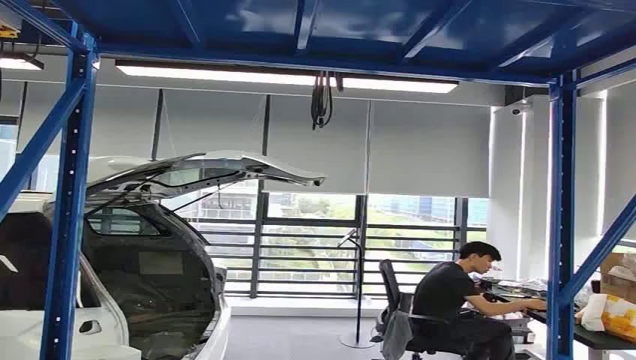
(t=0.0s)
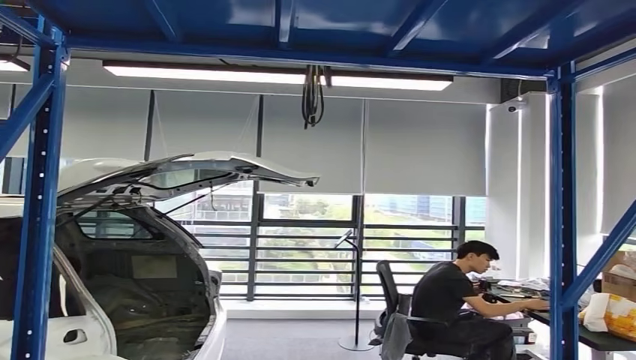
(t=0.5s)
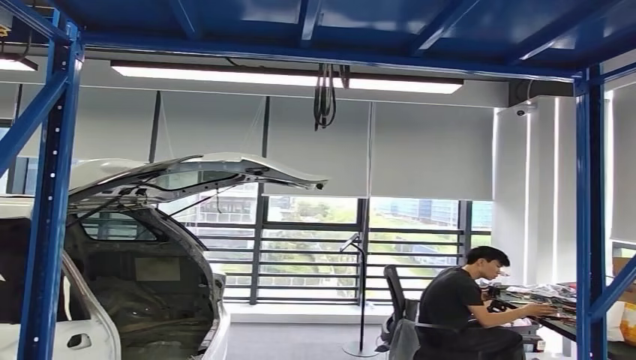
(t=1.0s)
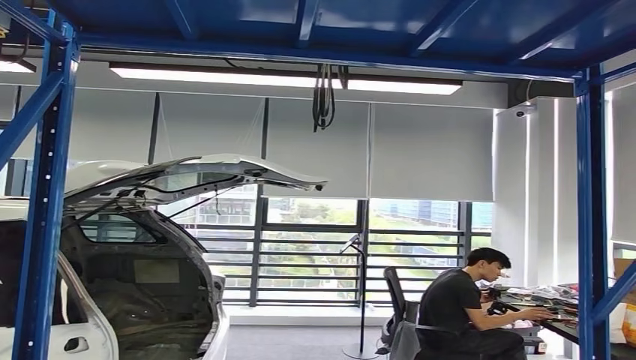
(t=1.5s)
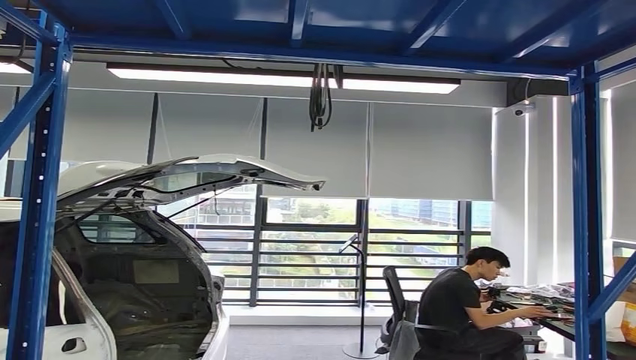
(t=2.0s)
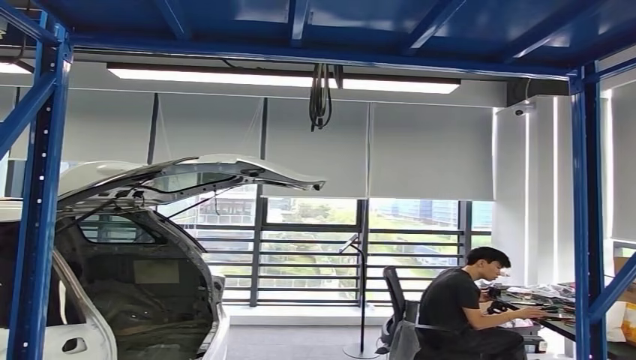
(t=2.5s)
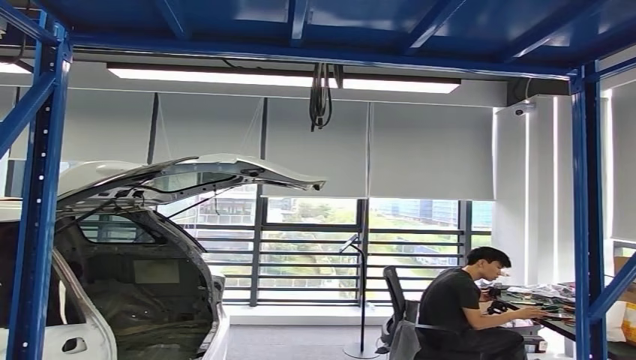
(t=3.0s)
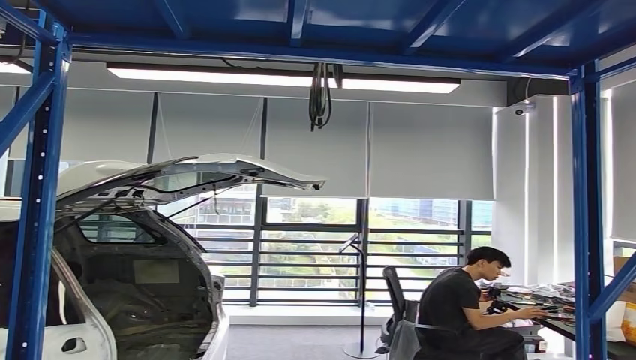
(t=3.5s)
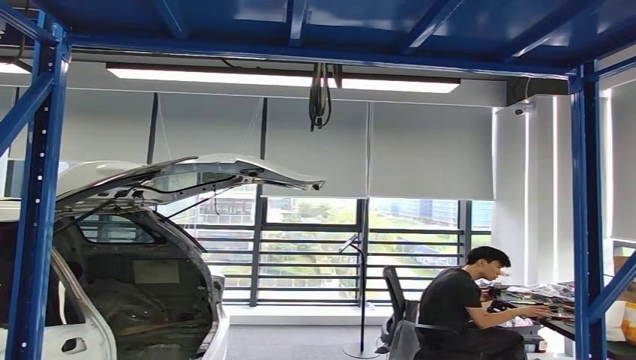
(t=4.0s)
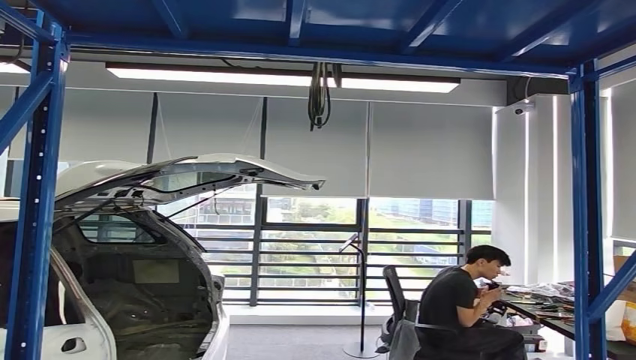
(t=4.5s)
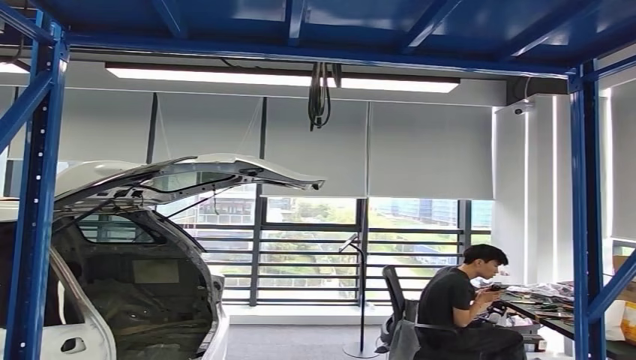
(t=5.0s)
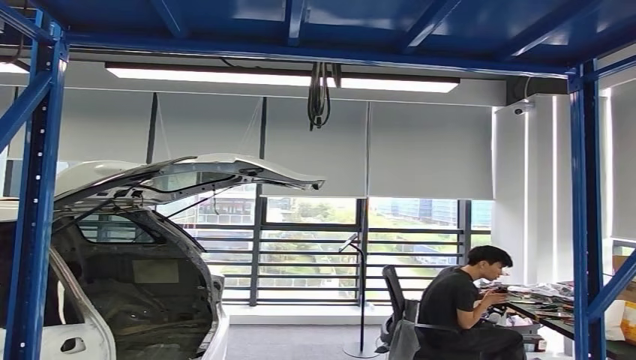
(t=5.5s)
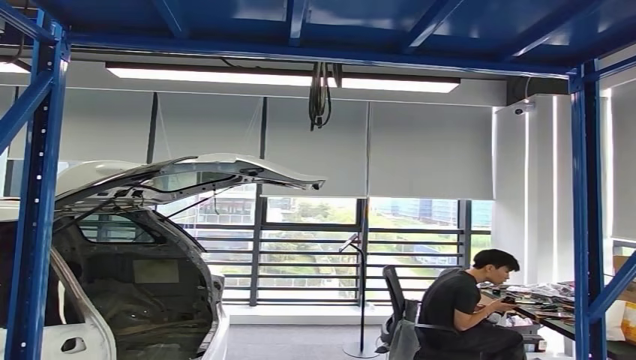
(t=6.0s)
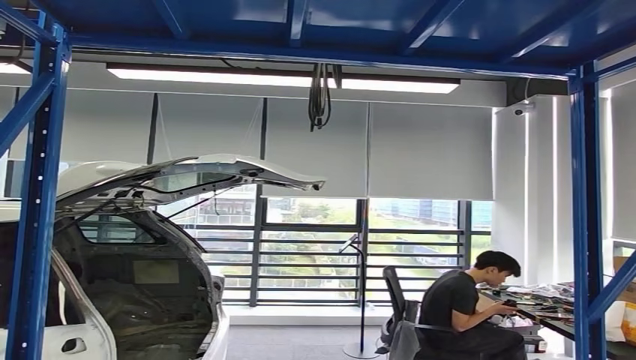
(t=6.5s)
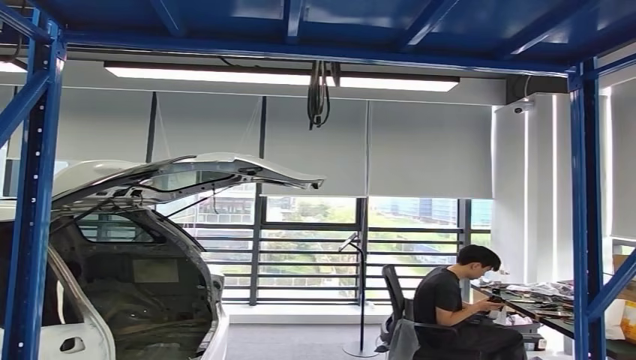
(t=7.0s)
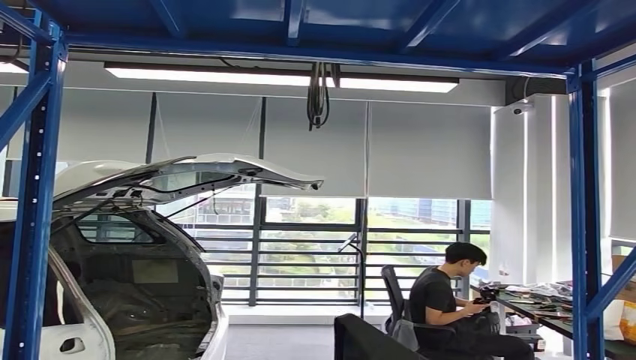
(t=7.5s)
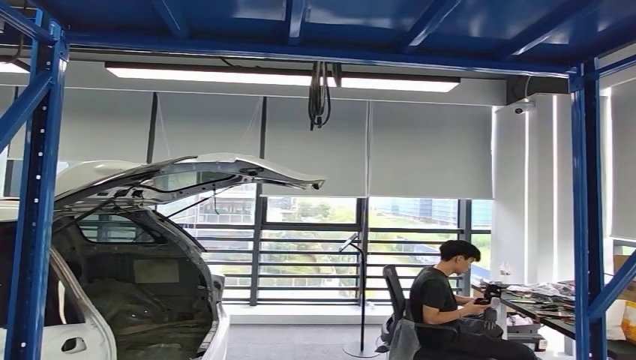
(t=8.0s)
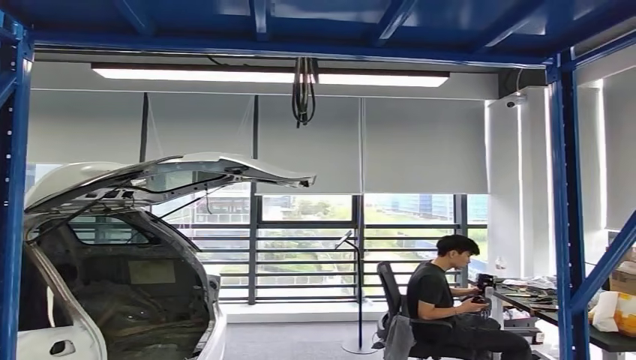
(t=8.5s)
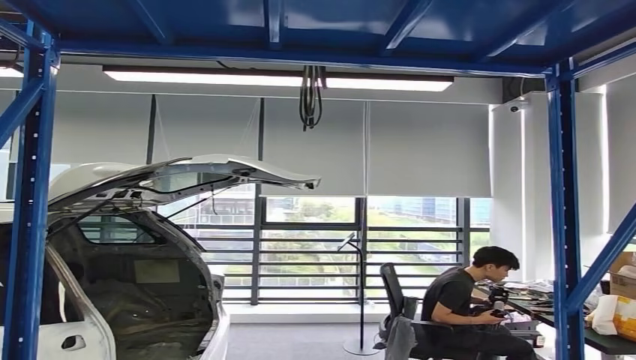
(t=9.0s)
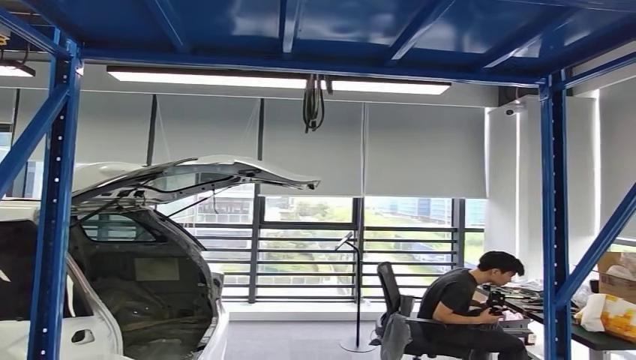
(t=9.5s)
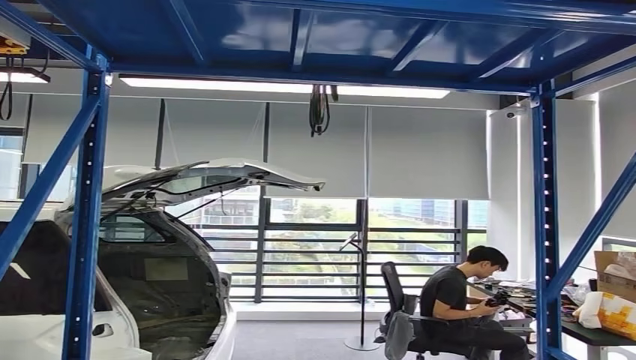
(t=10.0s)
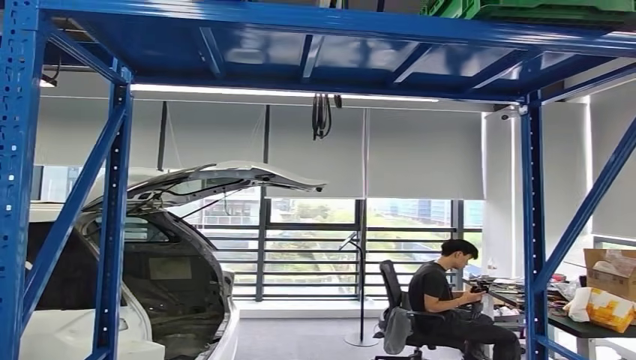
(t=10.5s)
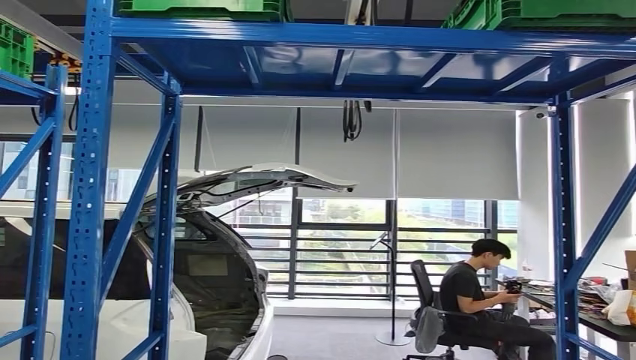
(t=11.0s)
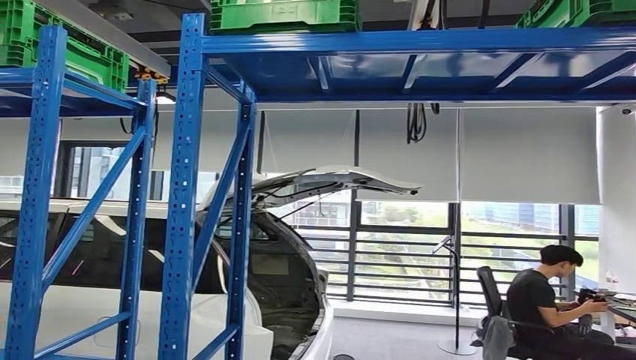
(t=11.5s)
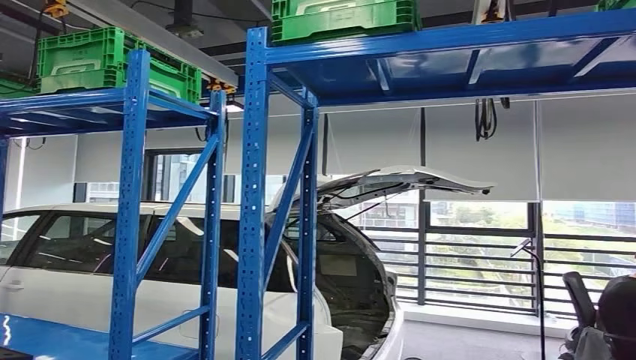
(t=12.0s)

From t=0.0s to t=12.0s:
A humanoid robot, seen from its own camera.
Step, from t=0.0s to t=6.5s: Pick up the small component from the shelf.
From t=2.0s to t=4.0s: The right hand goes roughly 20 cm forward.
From t=4.0s to t=6.0s: The right hand shifts some 10 cm to the left.
From t=6.0s to t=8.0s: The right hand is displaced backward and upward by about 15 cm.

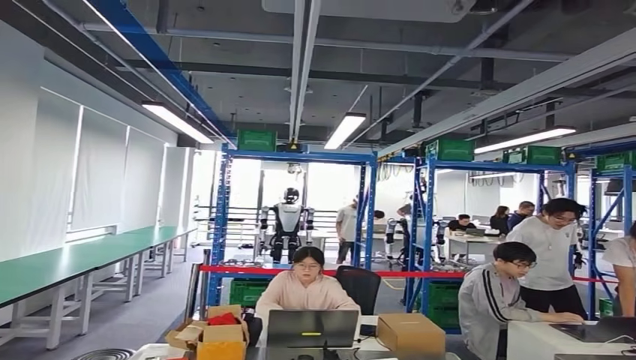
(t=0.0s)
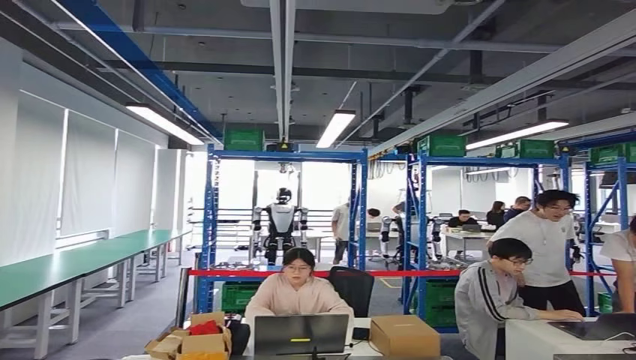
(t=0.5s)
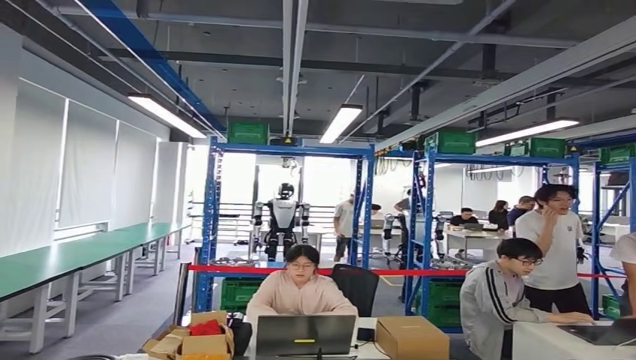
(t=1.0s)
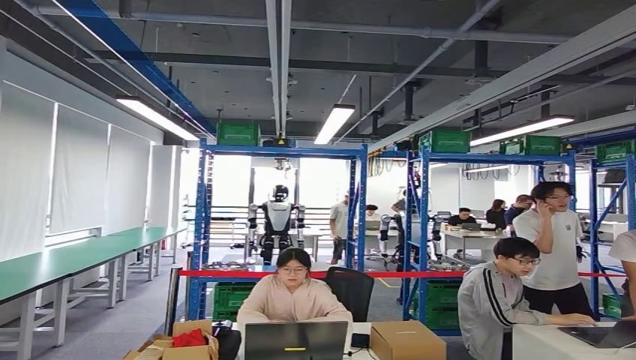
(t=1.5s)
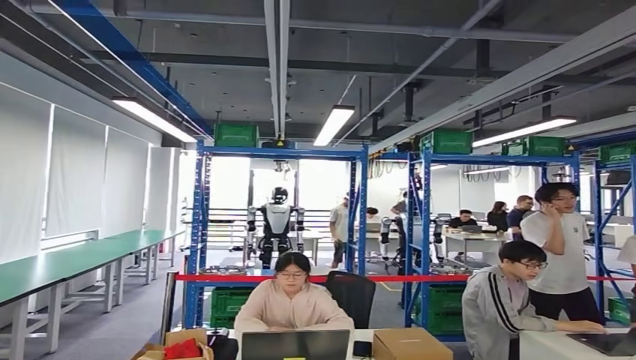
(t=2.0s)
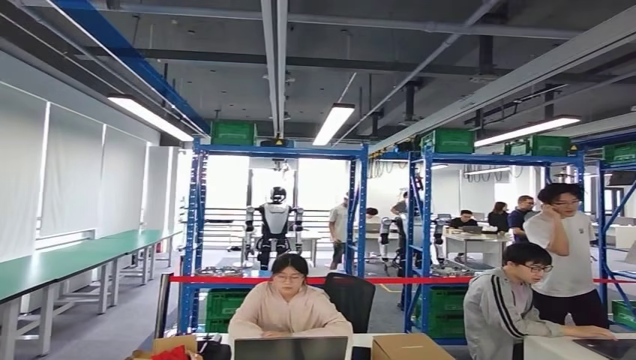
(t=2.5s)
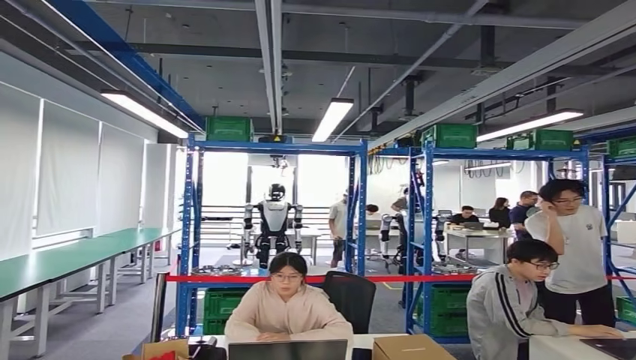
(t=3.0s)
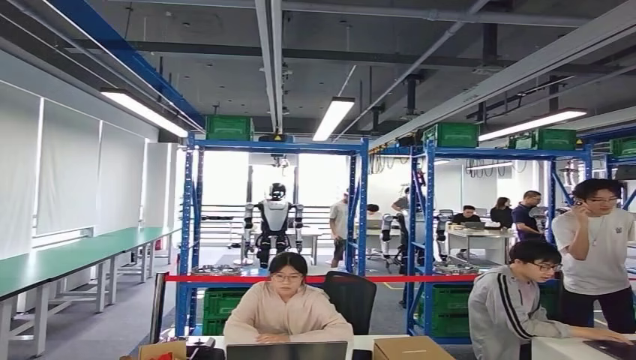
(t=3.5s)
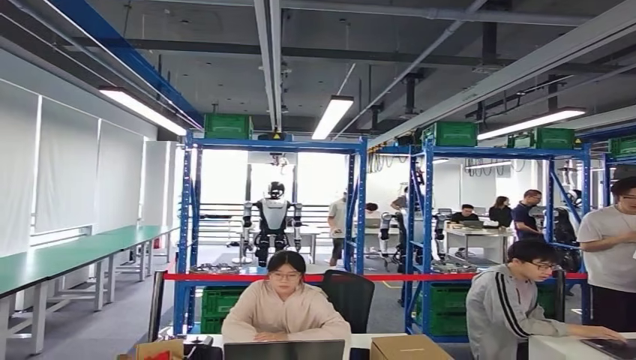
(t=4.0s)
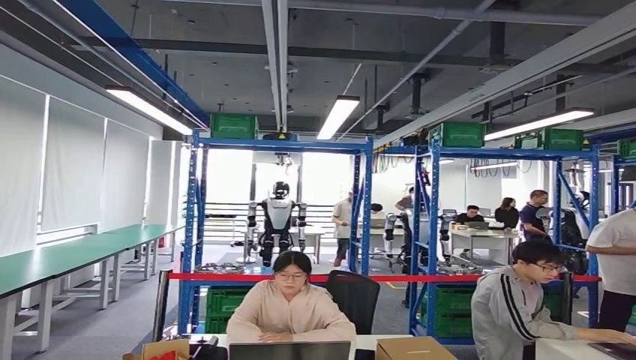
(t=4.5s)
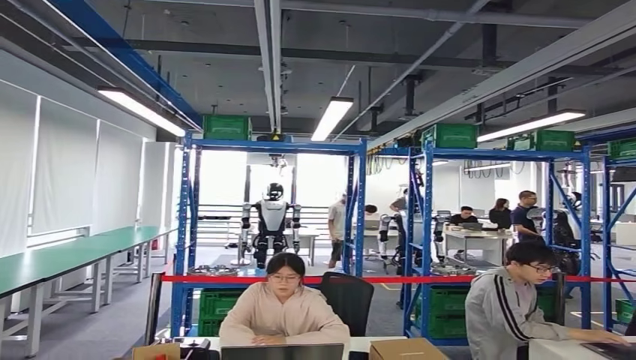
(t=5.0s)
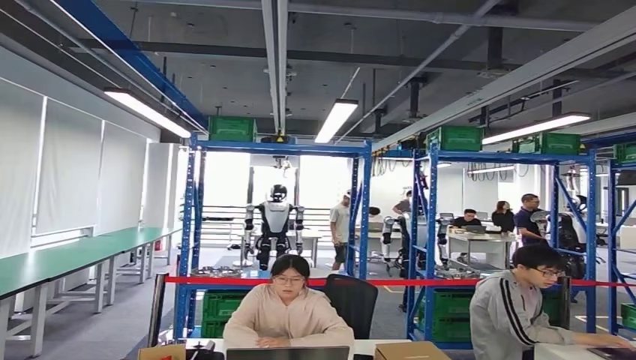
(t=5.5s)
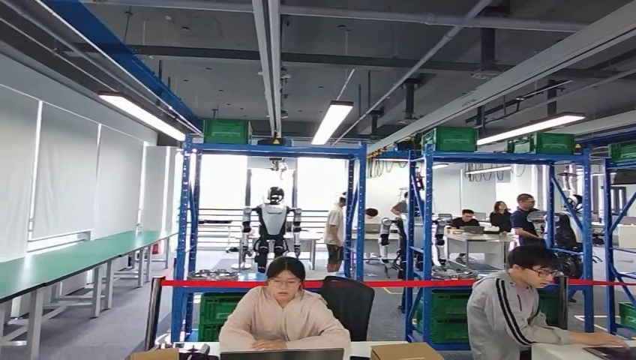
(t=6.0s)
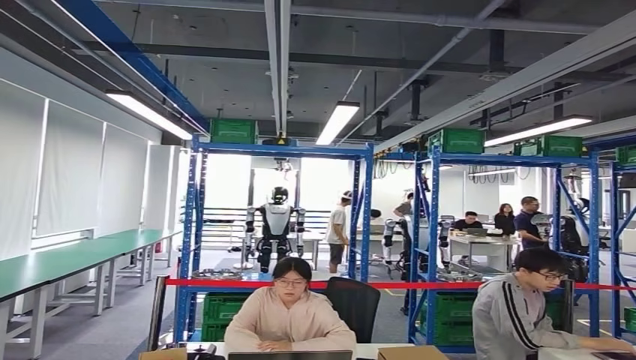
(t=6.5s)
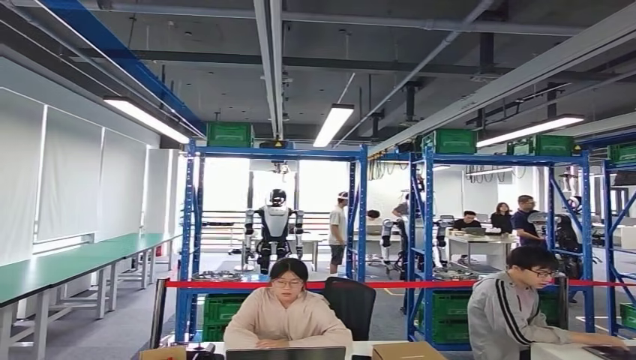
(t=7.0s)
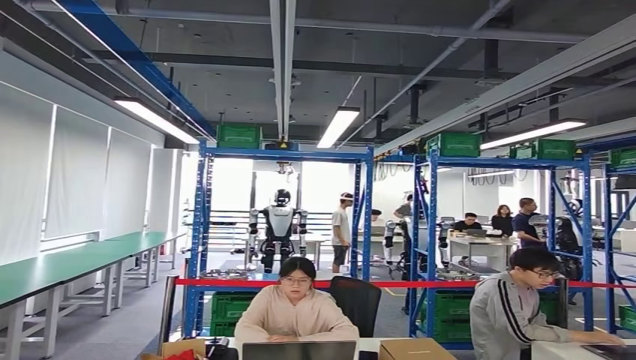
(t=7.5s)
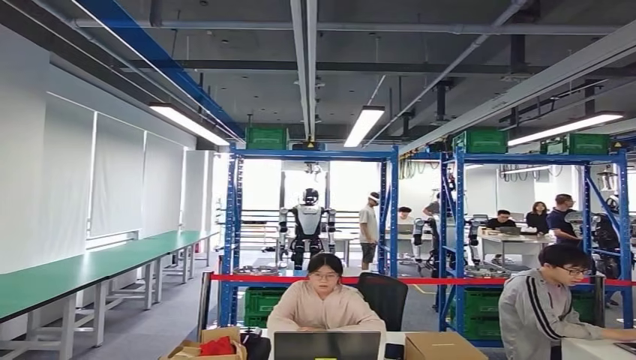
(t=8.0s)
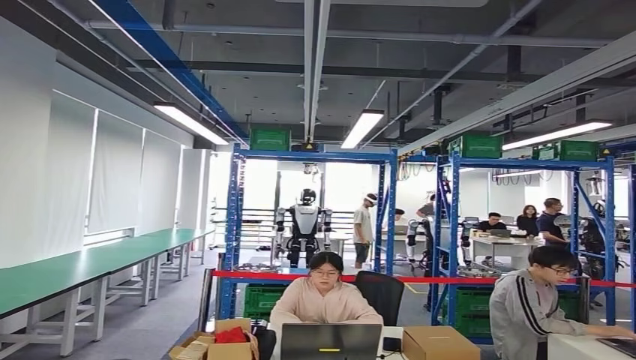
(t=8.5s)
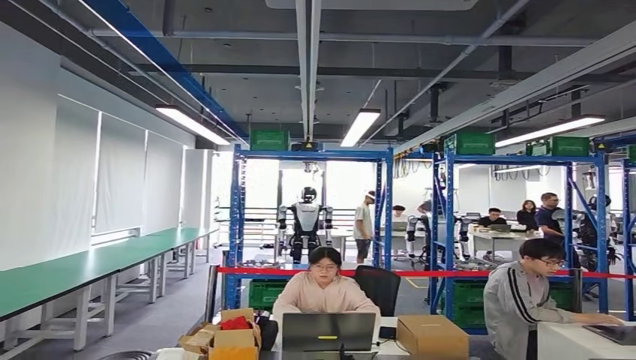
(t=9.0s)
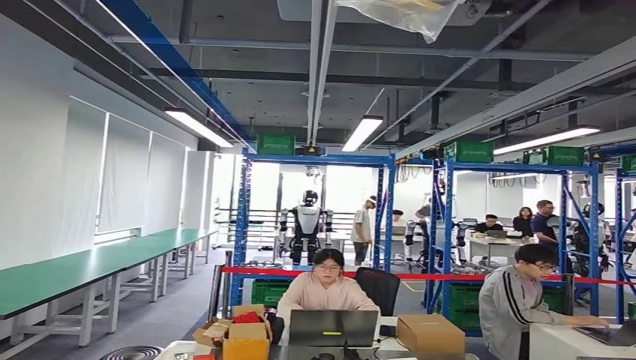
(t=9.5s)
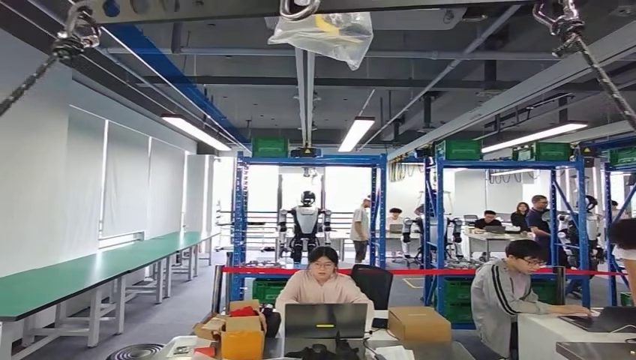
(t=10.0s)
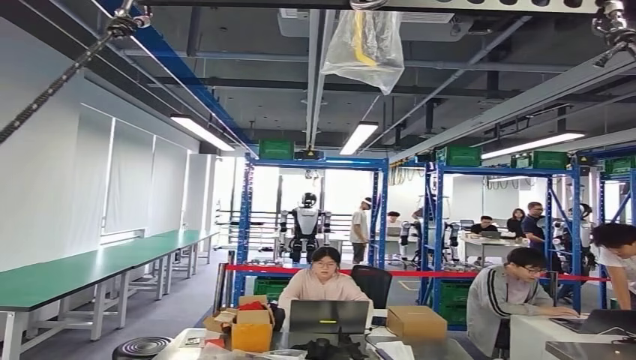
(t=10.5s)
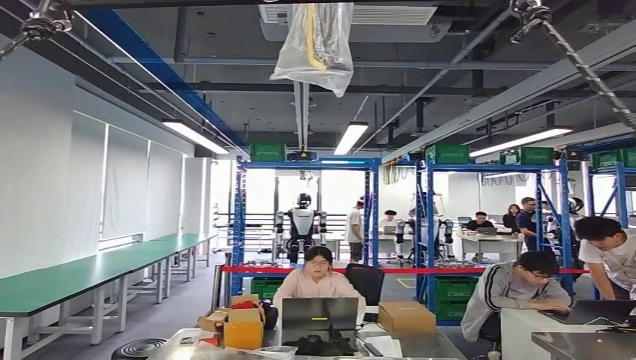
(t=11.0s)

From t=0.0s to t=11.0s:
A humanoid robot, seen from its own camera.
Step, from t=0.0s to t=5.0s: Move the small component to the workbench.
Step, from t=5.5s to t=7.5s: Insert the small component into the corresponding slot on the workbench.
Step, from t=8.0s to t=11.0s: Return to the initial position at the workbench.
